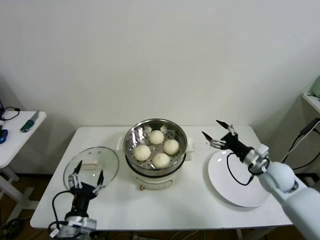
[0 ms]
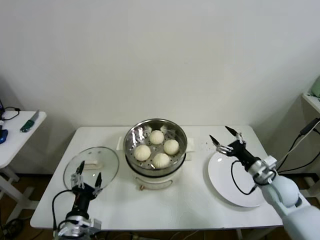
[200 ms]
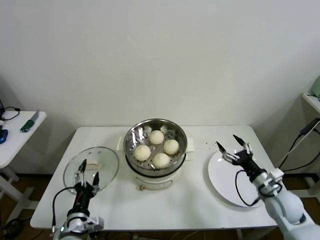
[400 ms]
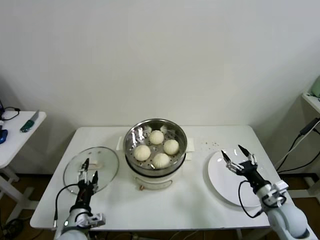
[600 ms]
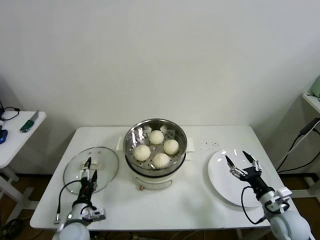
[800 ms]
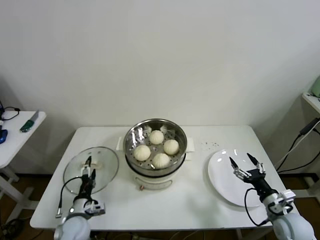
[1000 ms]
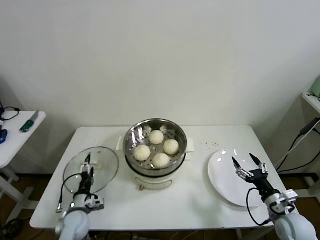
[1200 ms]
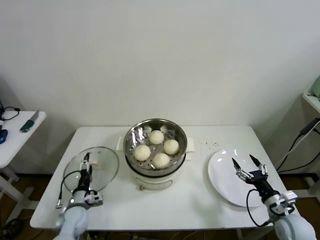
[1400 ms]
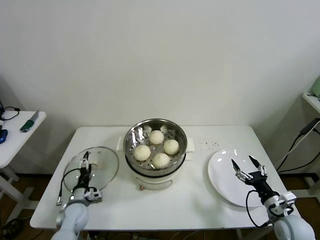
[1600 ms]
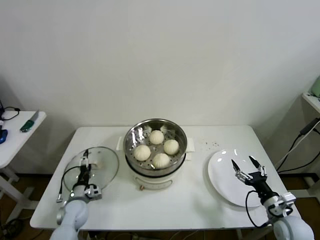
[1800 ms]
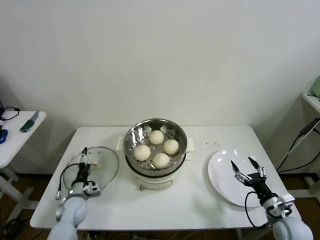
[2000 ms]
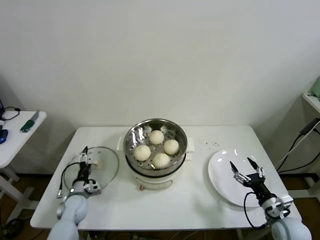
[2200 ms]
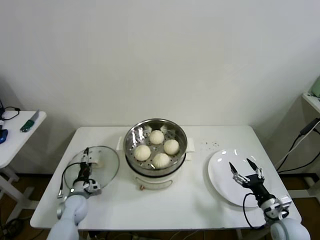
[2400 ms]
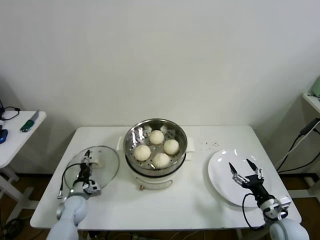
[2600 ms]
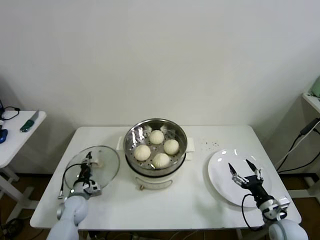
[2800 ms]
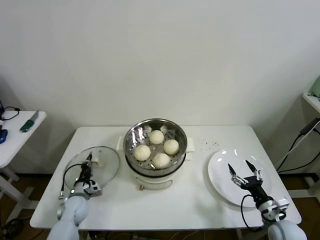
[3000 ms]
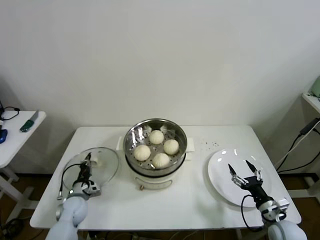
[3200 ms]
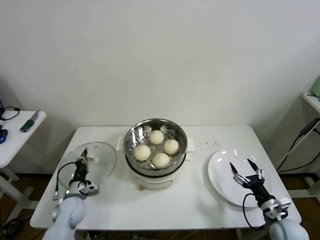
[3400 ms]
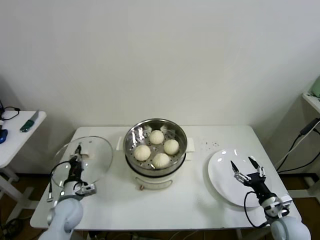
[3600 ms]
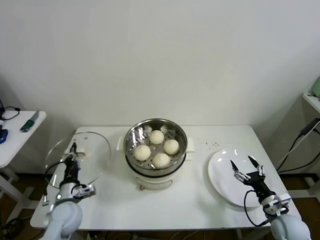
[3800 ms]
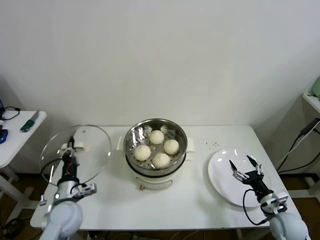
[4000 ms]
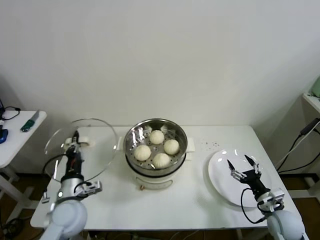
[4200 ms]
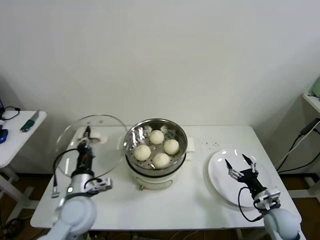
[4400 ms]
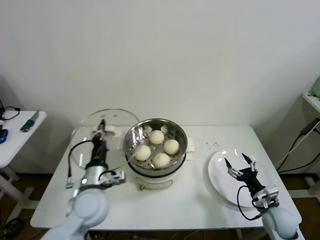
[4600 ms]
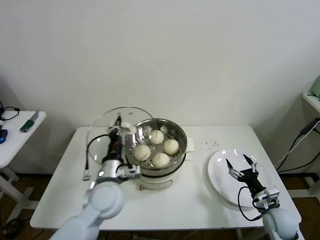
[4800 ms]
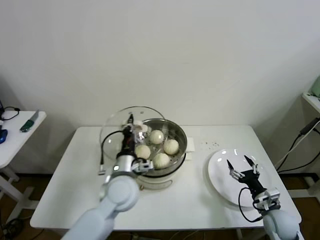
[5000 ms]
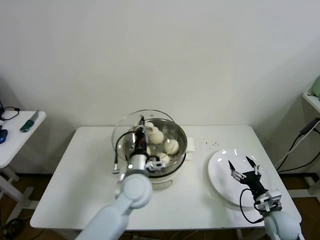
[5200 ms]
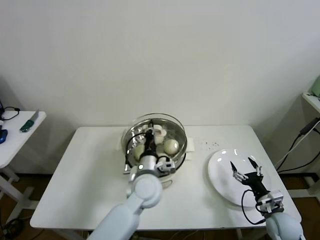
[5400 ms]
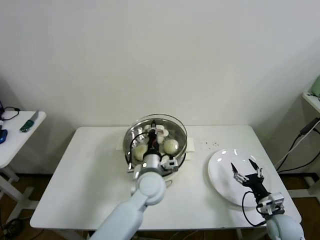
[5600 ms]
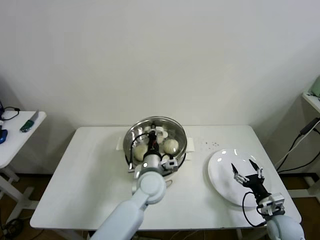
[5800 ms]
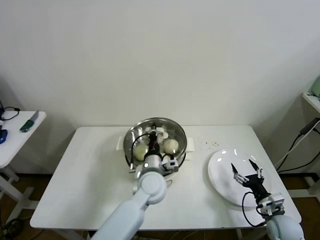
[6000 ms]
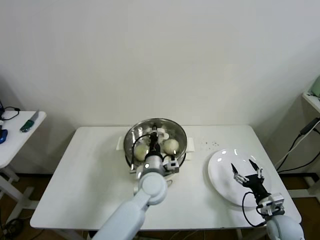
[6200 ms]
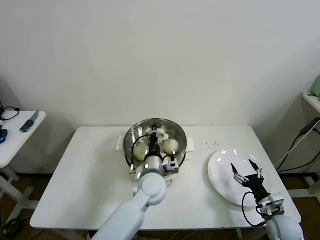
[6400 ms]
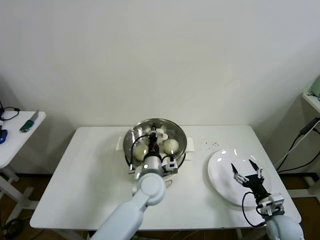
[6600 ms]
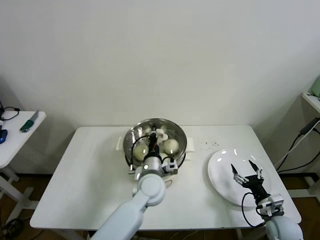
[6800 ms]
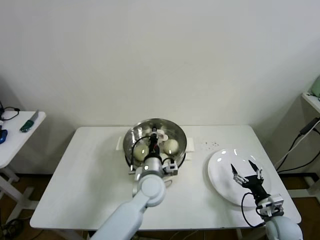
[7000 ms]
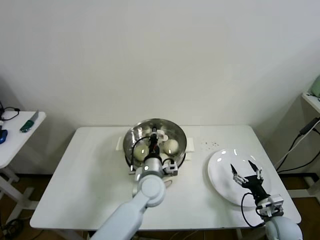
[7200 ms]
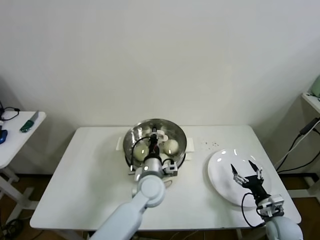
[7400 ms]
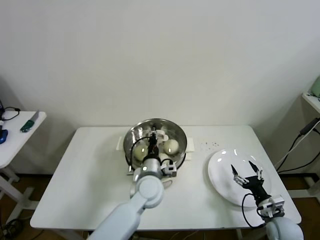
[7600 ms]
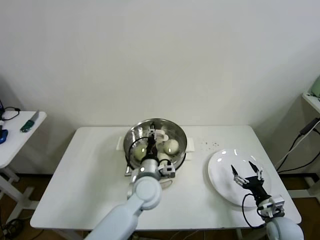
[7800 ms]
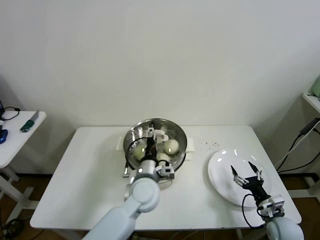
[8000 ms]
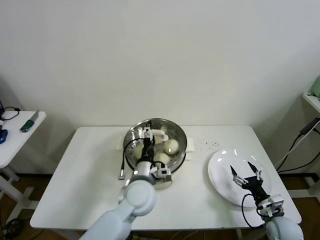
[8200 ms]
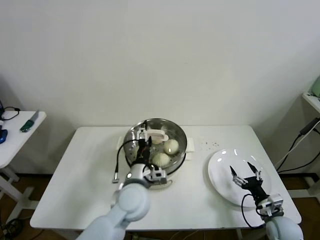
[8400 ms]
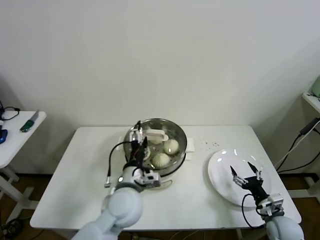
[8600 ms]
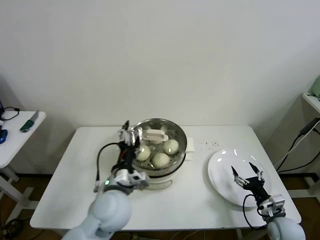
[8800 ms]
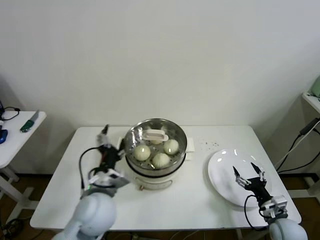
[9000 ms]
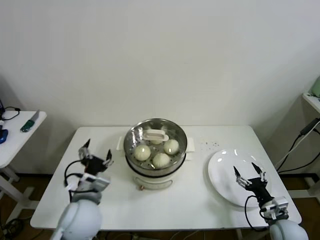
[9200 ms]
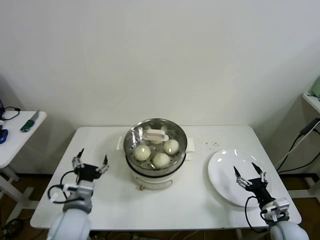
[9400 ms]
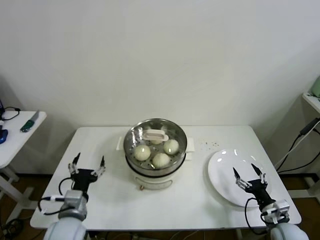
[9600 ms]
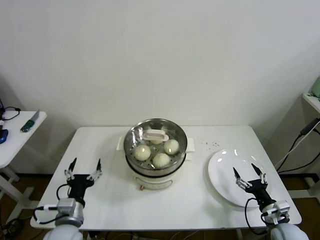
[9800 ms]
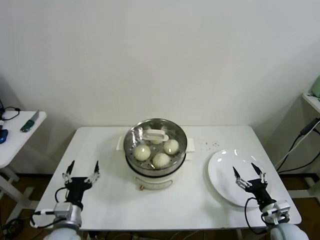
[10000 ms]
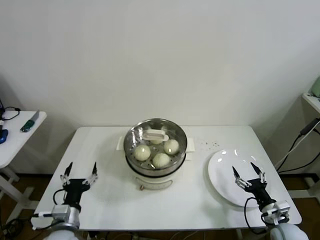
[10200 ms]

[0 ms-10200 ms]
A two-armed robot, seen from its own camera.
Step, 0 ms to 3200 ms: Grasp the pot lid with left gripper.
Step, 3400 ms to 7600 ms: Place the pot lid on the steamer with left gripper.
0 ms to 1400 ms: The left gripper travels forward, downward and to the left by approximately 20 cm. Meanwhile the right gripper is displaced backward and downward by about 15 cm.
1400 ms to 3000 ms: The left gripper shifts by about 5 cm, and closes its fingers.
3000 ms to 4400 ms: The left gripper heads upward, to the right and backward, covering about 20 cm.
4400 ms to 5800 ms: The left gripper goes roughly 20 cm to the right and forward.
5800 ms to 7200 ms: The grippers stay close to where they were, moving slightly.
7200 ms to 8800 ms: The left gripper heads to the left, backward and upward, covering some 15 cm, and opens.
8800 ms to 10200 ms: The left gripper shifts some 20 cm to the left, downward and backward.

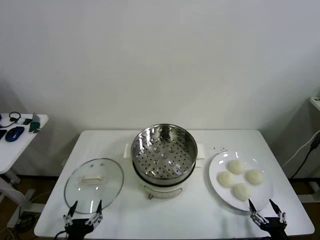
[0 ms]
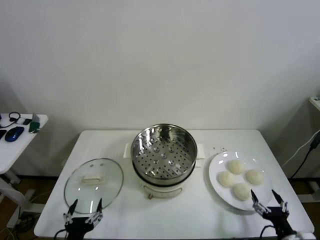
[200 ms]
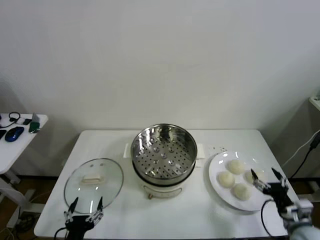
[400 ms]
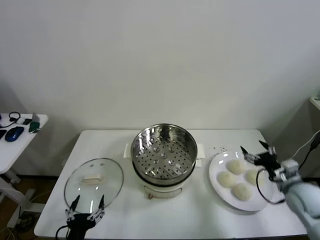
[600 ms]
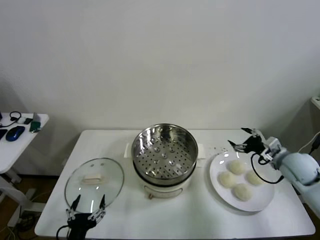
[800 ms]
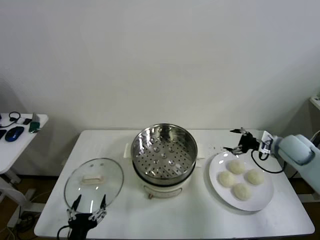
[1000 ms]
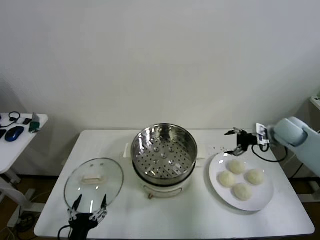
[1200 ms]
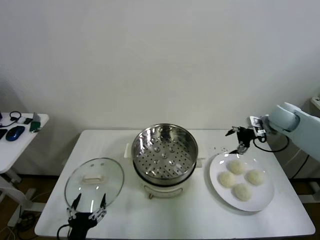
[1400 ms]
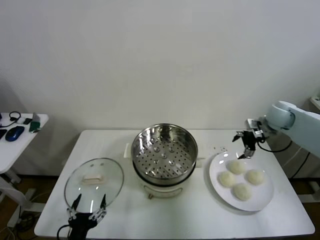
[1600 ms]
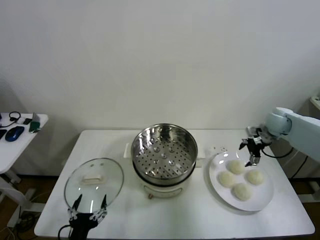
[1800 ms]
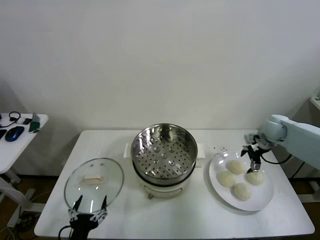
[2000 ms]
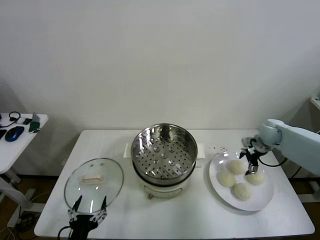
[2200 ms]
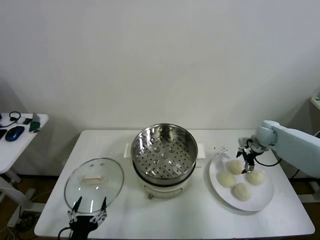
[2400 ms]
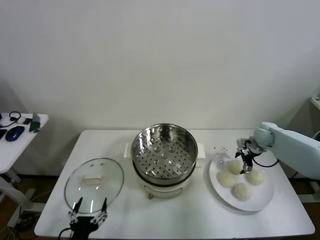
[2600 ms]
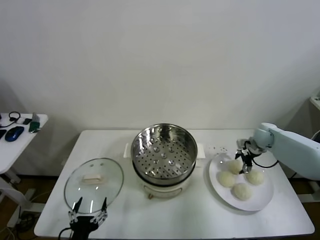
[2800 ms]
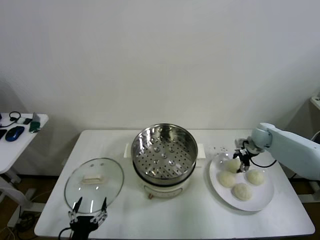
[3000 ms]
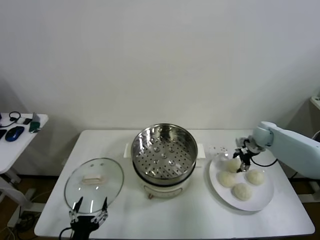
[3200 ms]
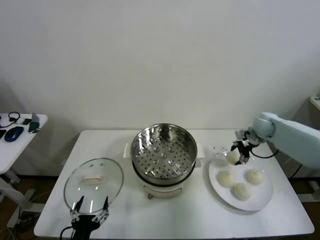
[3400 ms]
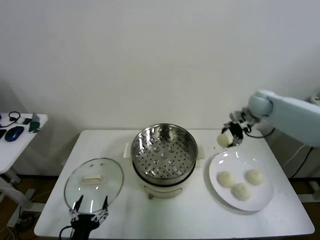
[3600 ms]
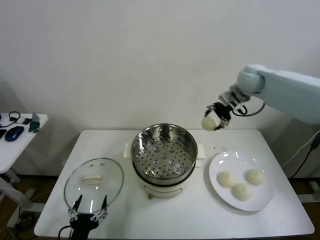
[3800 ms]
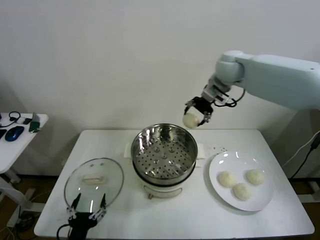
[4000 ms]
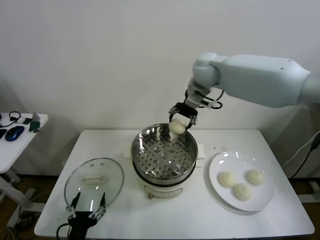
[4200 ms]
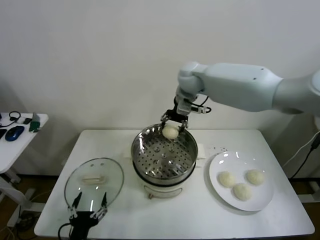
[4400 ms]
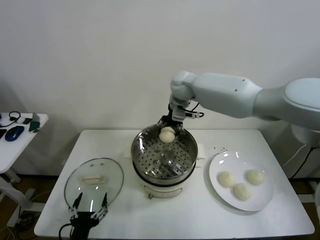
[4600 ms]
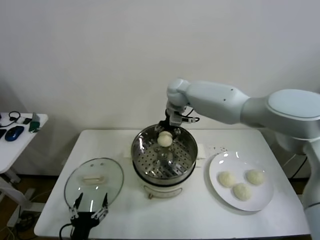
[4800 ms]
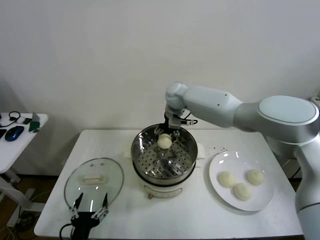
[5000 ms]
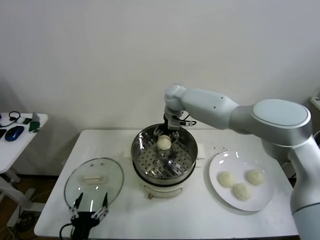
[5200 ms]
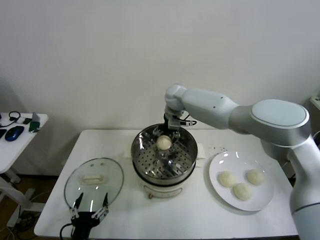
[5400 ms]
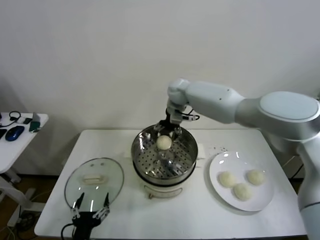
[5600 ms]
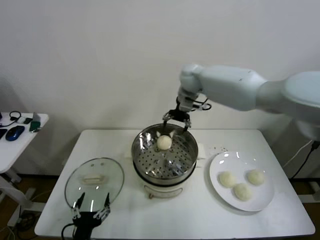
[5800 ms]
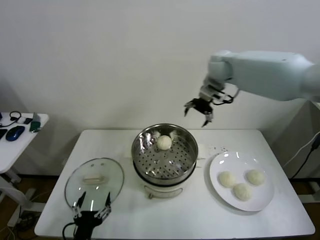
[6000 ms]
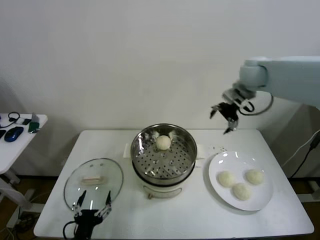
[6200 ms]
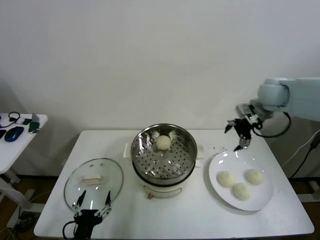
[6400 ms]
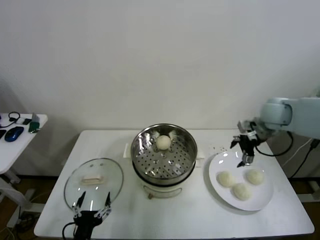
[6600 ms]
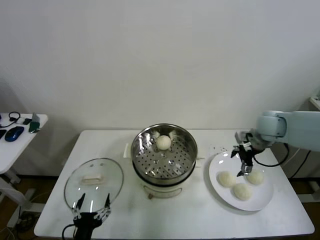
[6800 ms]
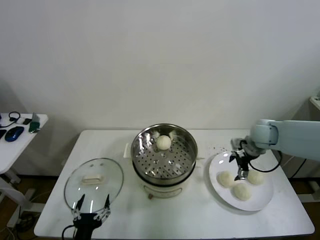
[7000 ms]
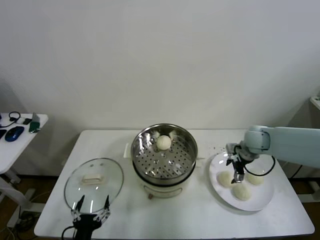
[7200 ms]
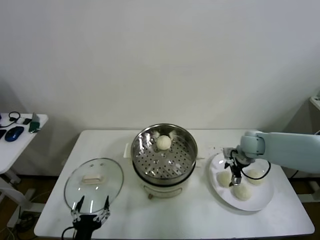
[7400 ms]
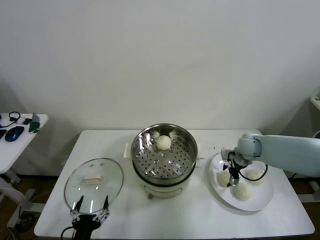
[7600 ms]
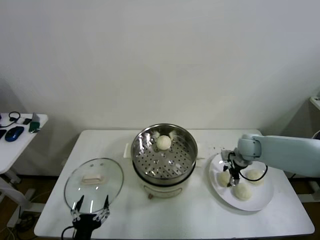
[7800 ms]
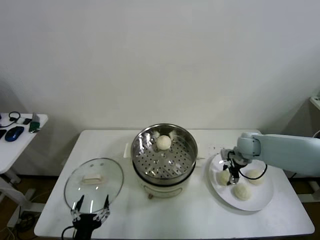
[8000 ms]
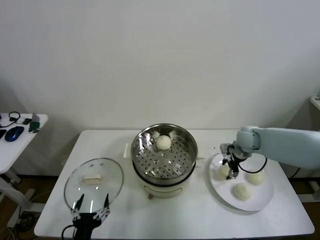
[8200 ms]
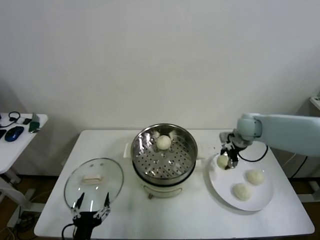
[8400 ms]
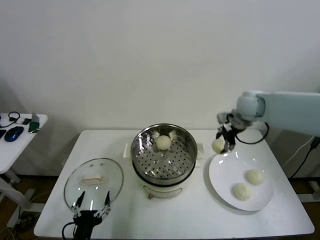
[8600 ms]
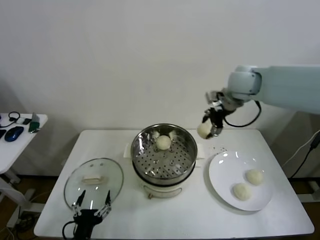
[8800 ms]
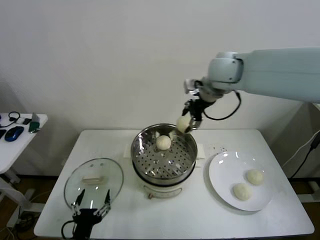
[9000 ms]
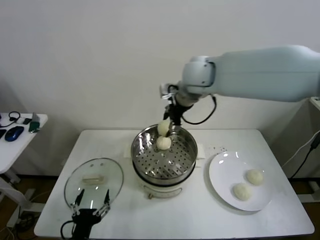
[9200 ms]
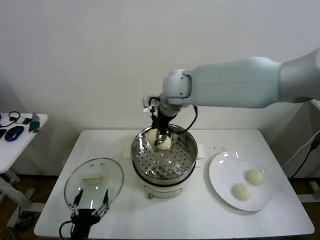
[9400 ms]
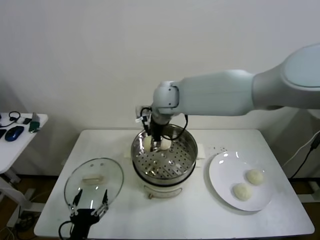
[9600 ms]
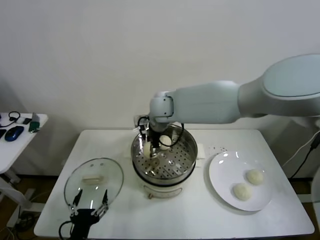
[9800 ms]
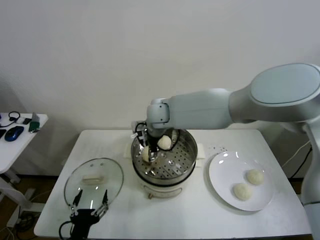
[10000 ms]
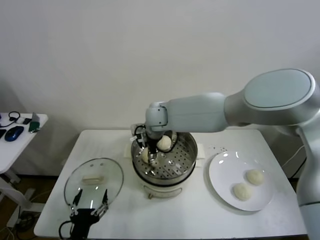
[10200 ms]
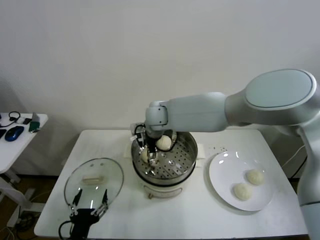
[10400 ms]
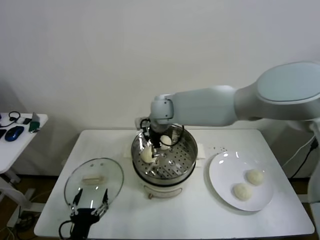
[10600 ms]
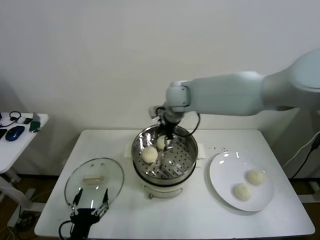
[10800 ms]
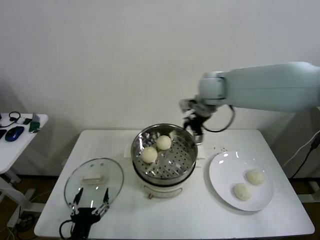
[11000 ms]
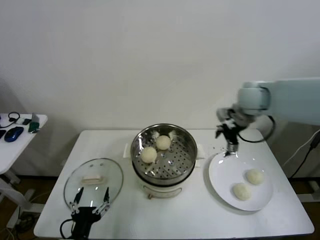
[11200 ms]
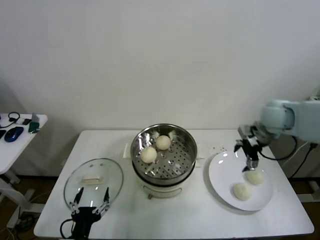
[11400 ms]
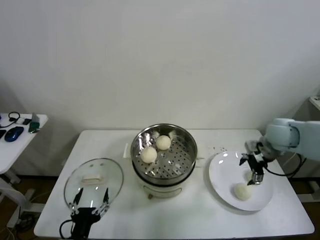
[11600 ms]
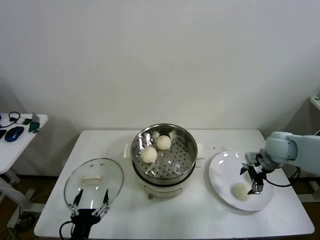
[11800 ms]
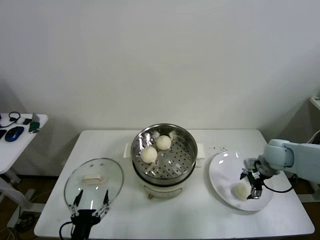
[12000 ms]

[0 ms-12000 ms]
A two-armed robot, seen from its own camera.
Step, 0 ms to 2800 ms: Grasp the baozi in the plate with right gripper.
Step, 3000 ms to 5400 ms: Place the baozi on the steamer with right gripper.
Step, 5600 ms to 7800 ms: Grasp the baozi in the plate with right gripper.
Step, 8000 ms to 10400 ms: Place the baozi on the steamer with right gripper.
1600 ms to 3000 ms: The right gripper travels downward by some 10 cm, and closes up.
3000 ms to 4400 ms: The right gripper goes some 40 cm to the left and upward.
4400 ms to 6000 ms: The right gripper goes roughly 15 cm to the right, and opens its fingers.
6000 ms to 7600 ms: The right gripper is displaced downward by some 25 cm, and closes up.
7600 ms to 9000 ms: The right gripper is displaced upward and to the left by approximately 35 cm, and closes.
9000 ms to 10400 ms: The right gripper goes some 20 cm downward and to the left, and opens.
10400 ms to 12000 ms: The right gripper is displaced to the right by about 40 cm.
